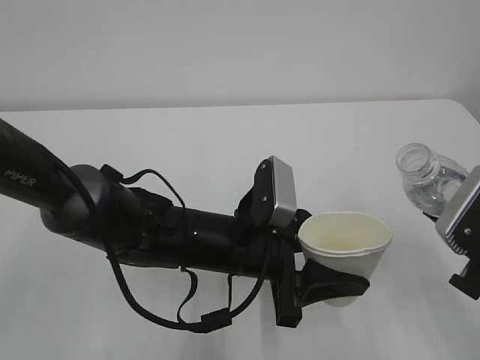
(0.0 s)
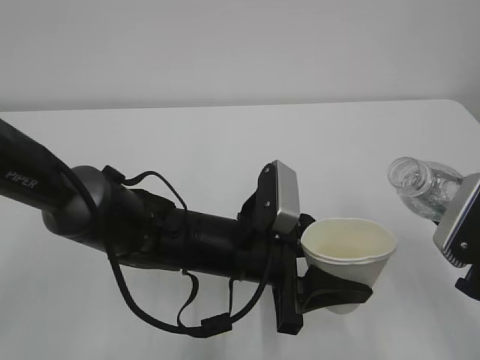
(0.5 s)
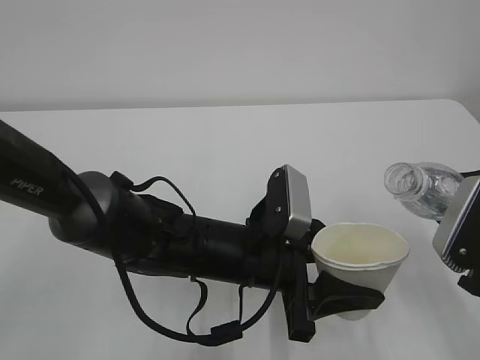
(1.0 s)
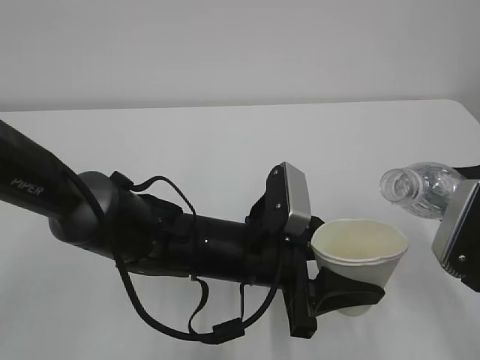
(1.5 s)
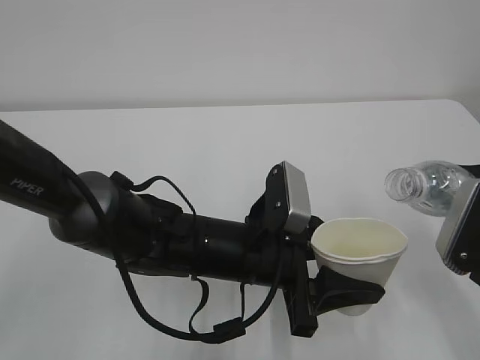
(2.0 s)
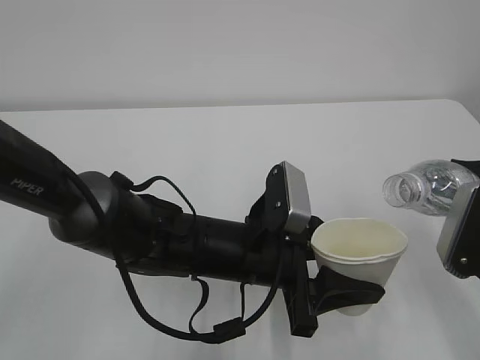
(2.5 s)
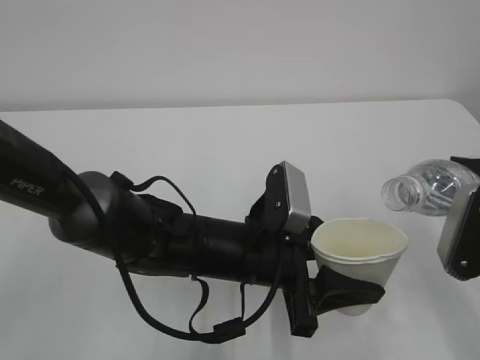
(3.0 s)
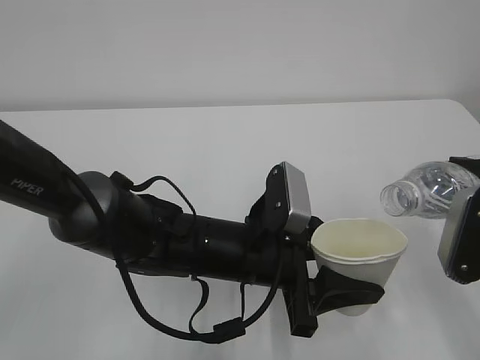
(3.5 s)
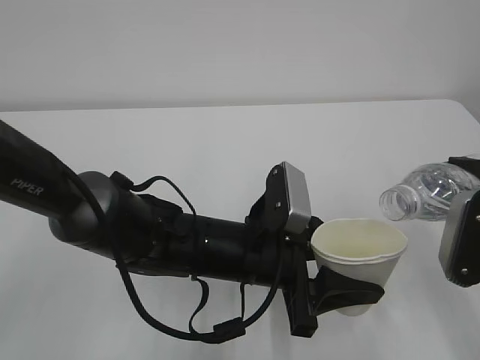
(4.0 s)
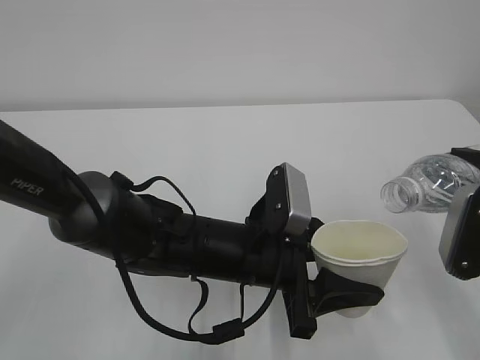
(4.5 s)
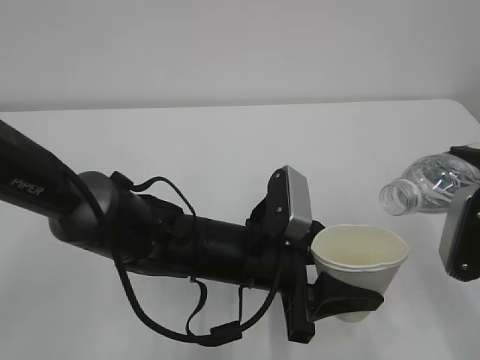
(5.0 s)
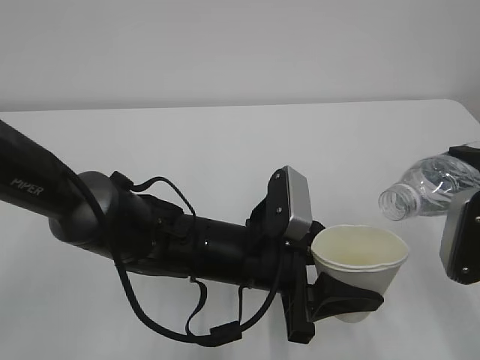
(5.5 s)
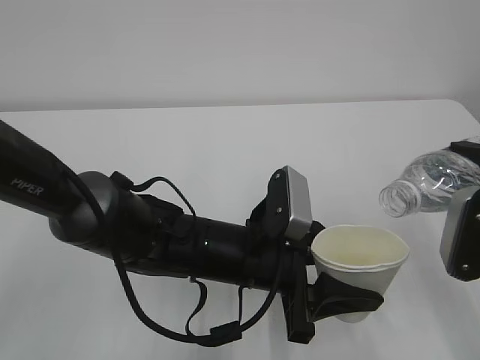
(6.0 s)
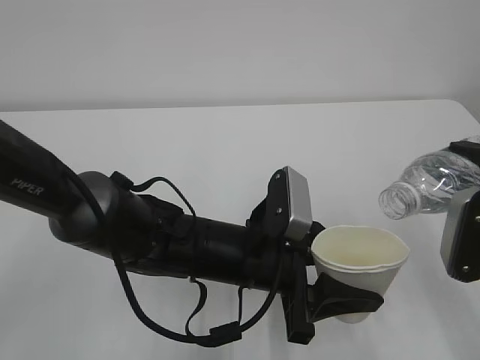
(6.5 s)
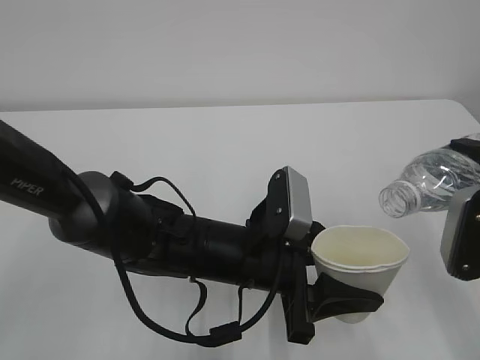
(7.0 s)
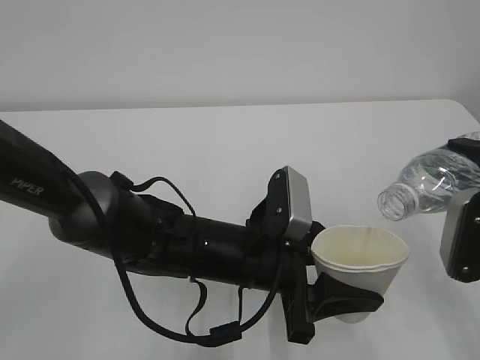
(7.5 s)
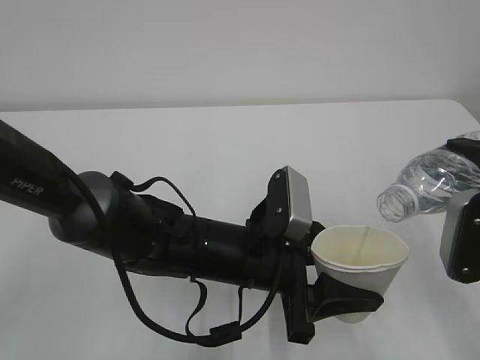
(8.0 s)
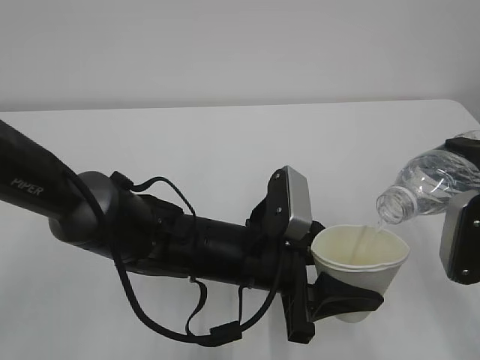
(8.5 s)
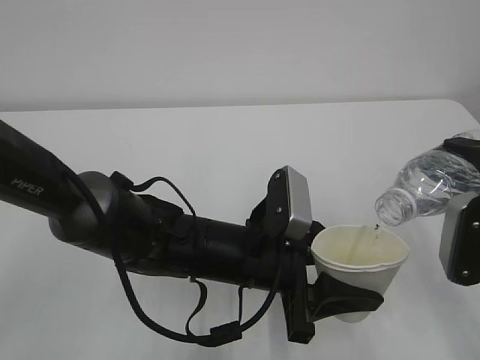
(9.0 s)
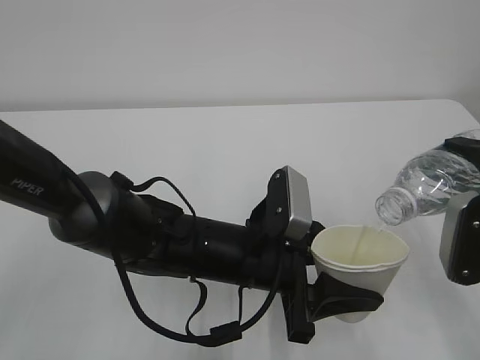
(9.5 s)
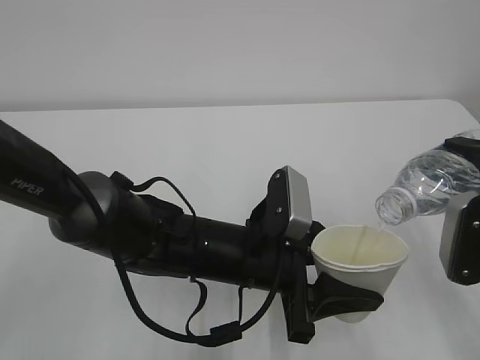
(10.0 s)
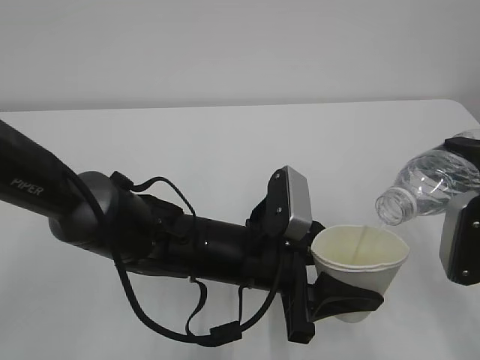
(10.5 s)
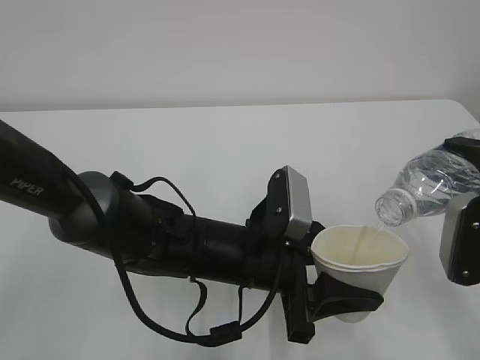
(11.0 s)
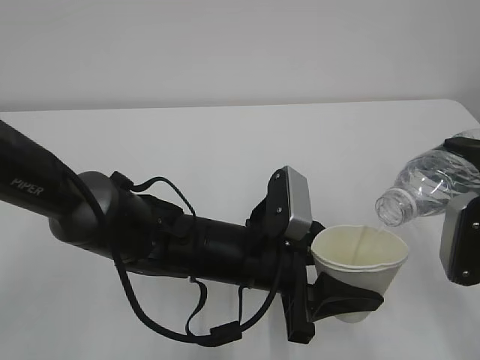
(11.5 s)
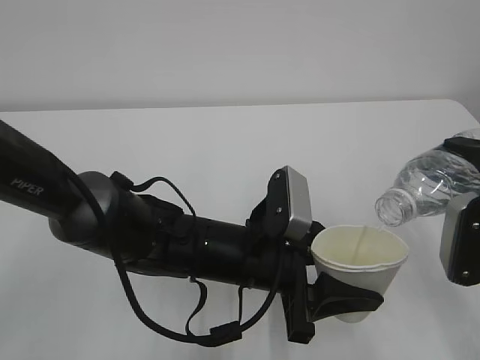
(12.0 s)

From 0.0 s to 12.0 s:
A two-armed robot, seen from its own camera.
From 0.0 s to 2.0 s: The grippers make only small movements.
From 2.0 s to 6.0 s: The grippers stay close to where they were, moving slightly.
From 6.0 s to 8.0 s: Both grippers stay put.
From 8.0 s to 12.0 s: Neither gripper changes place.

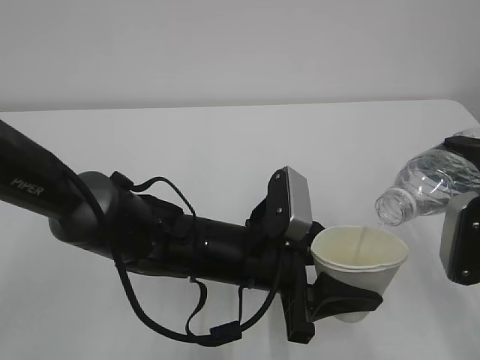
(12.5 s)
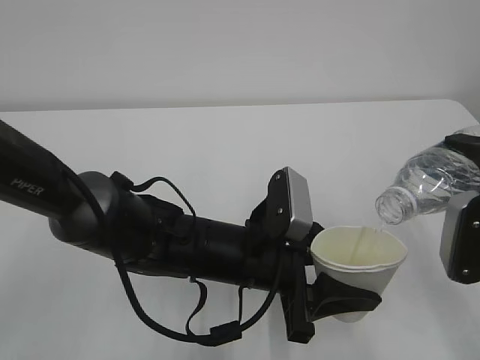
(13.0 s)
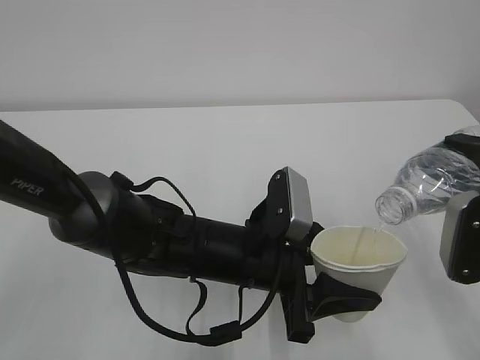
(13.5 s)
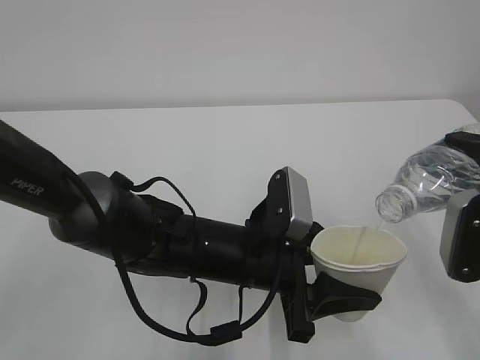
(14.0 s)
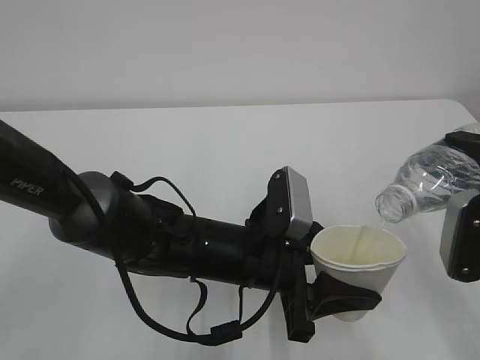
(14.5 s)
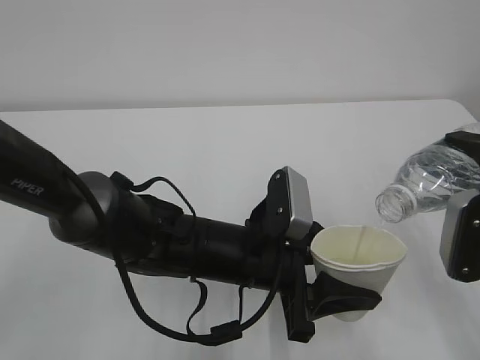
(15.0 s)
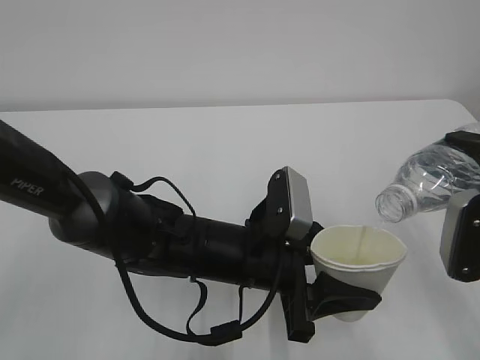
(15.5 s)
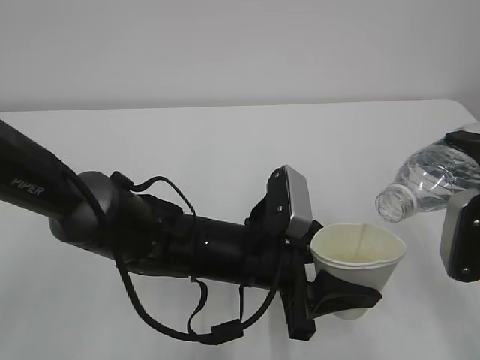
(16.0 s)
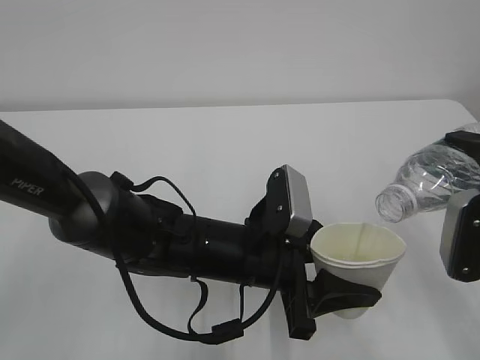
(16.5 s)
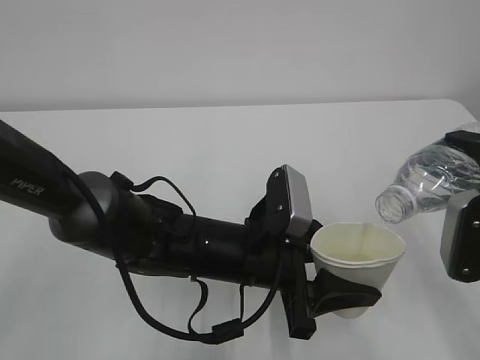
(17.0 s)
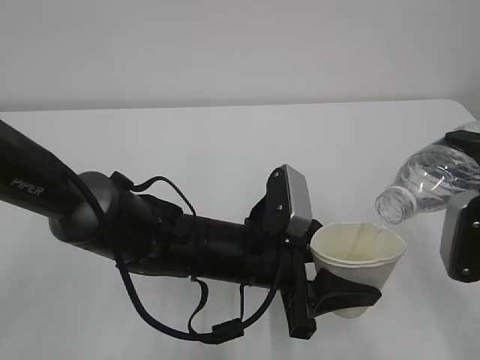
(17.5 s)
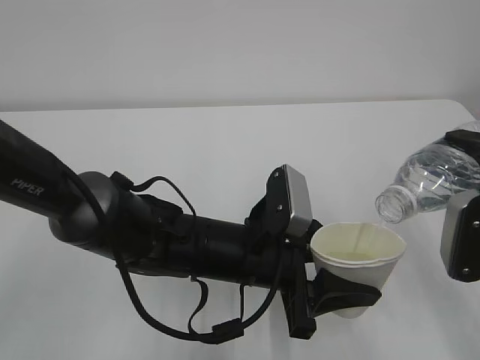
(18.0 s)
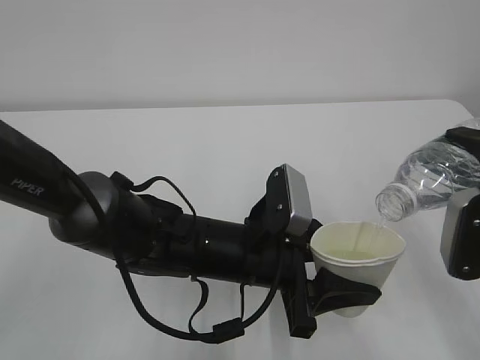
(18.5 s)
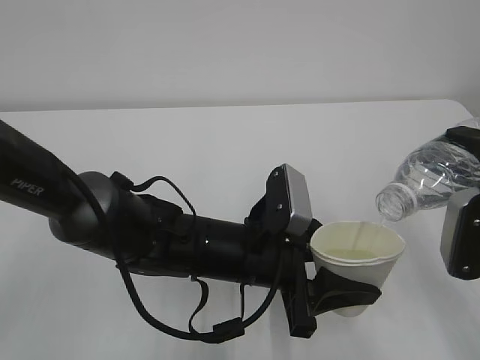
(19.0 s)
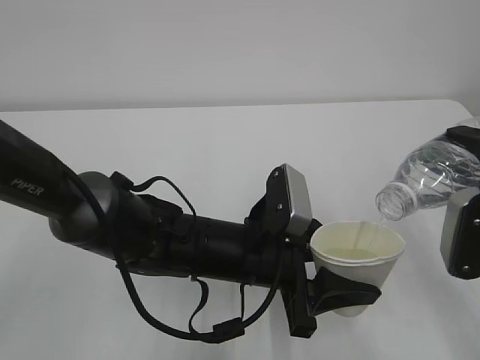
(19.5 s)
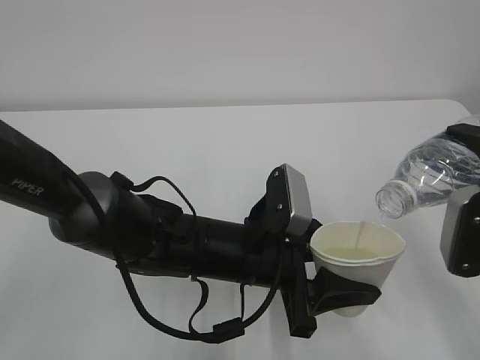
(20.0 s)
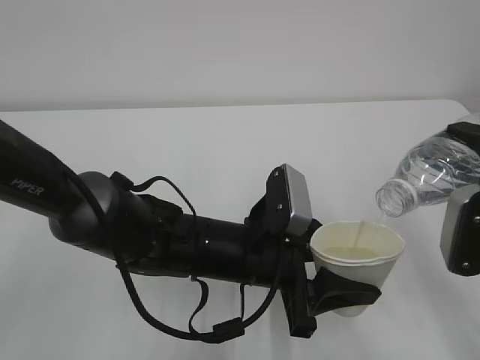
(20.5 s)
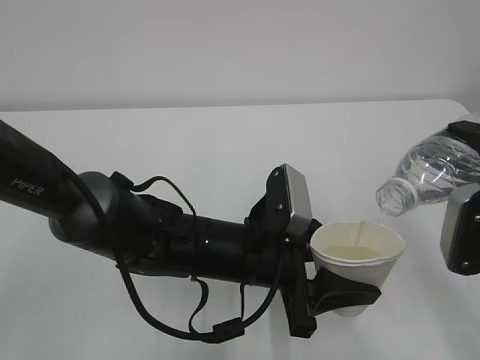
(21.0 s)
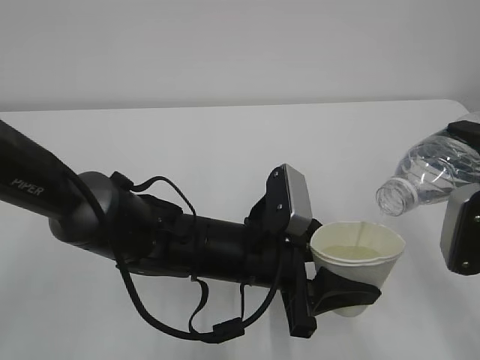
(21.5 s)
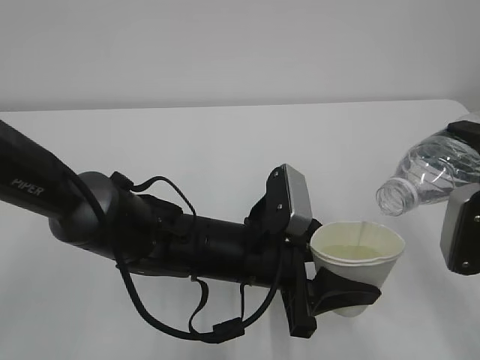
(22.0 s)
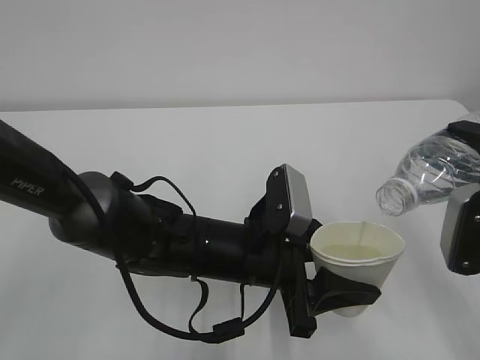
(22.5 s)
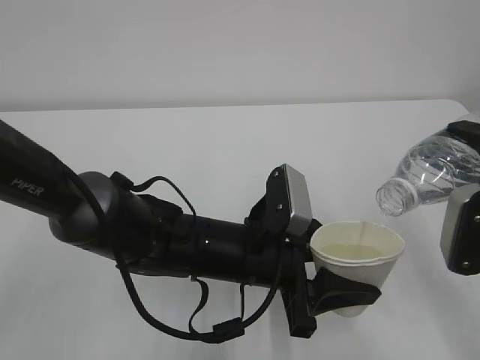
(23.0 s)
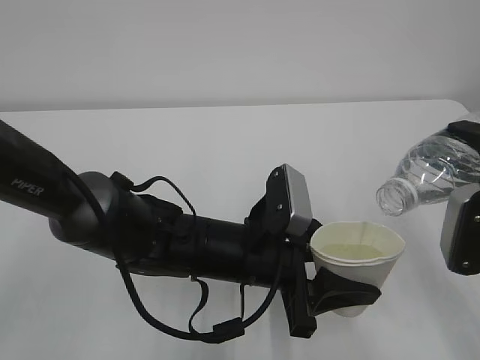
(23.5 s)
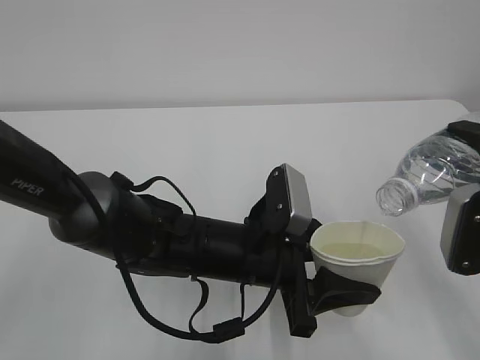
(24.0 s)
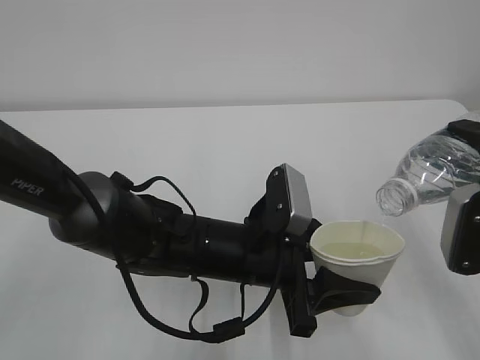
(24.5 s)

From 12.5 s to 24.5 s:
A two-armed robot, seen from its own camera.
From 12.5 s to 24.5 s: Neither gripper changes place.

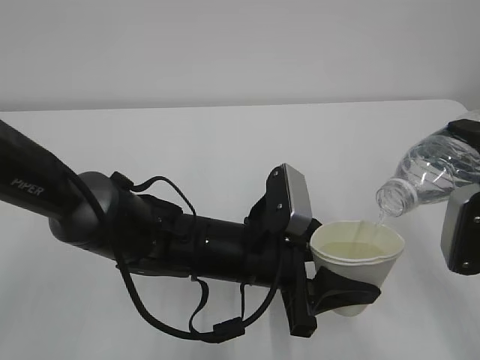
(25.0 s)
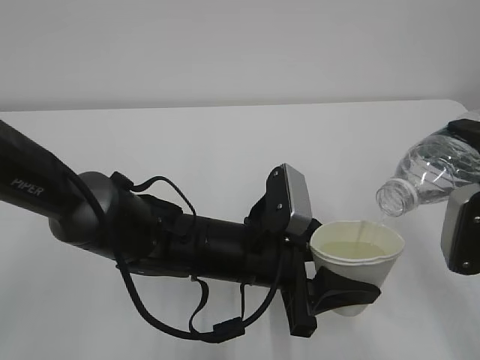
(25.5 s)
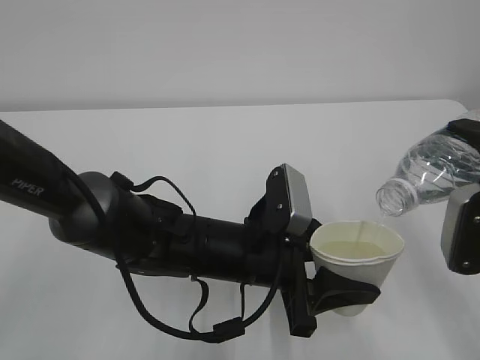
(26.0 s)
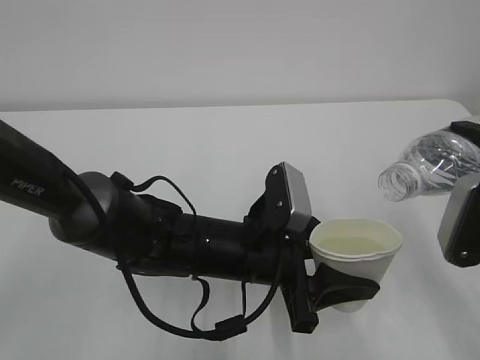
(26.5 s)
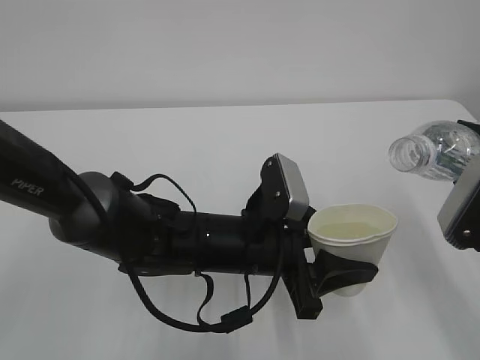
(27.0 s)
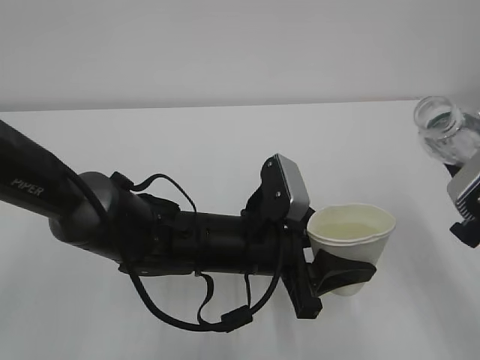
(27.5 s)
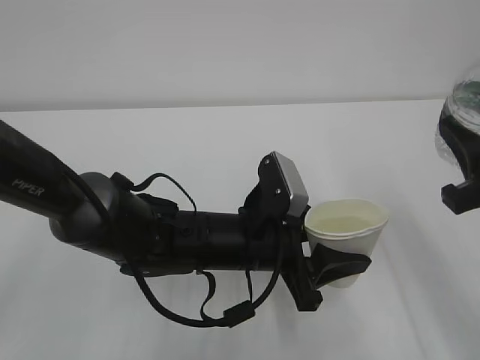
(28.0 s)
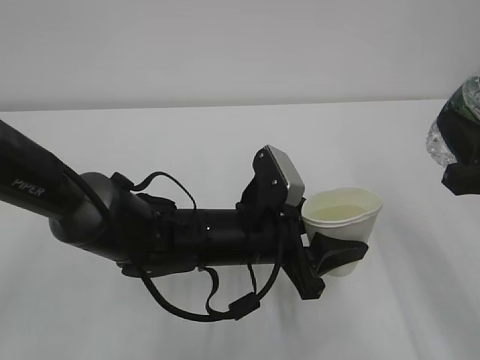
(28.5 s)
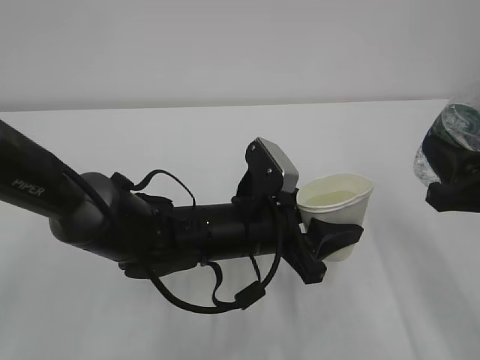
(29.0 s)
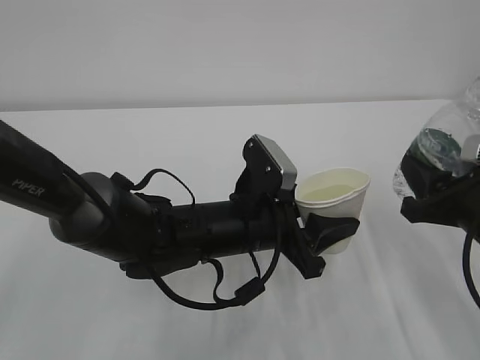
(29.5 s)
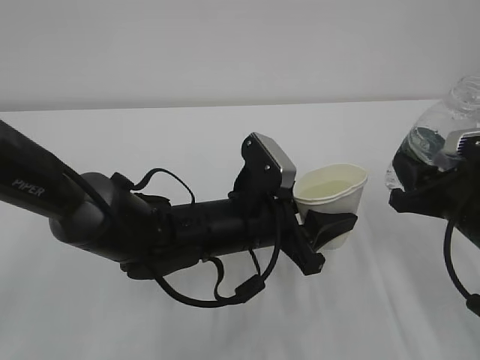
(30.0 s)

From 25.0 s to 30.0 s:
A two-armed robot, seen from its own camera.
From 27.5 s to 30.0 s: The right gripper travels downward and forward by roughly 10 cm.
